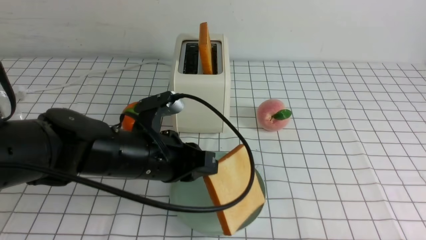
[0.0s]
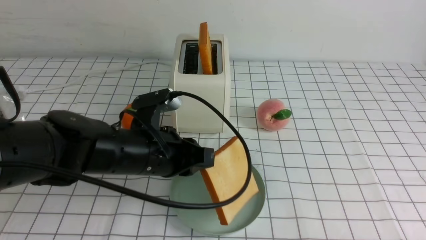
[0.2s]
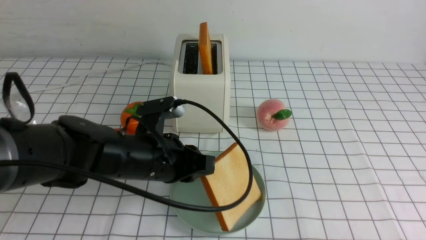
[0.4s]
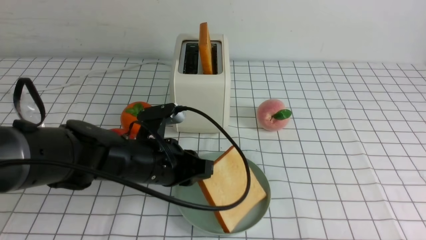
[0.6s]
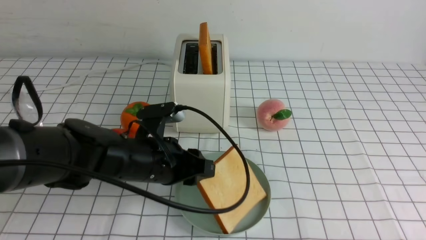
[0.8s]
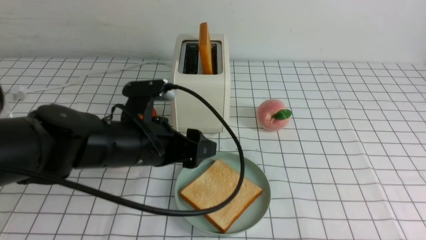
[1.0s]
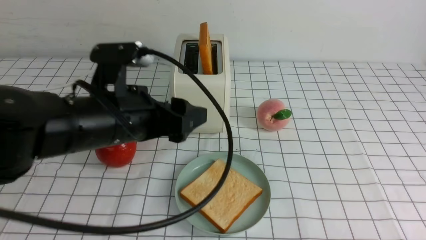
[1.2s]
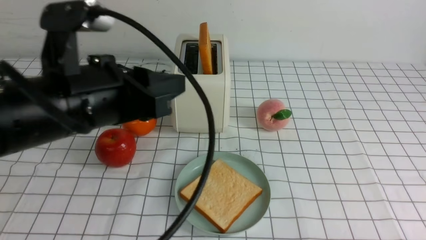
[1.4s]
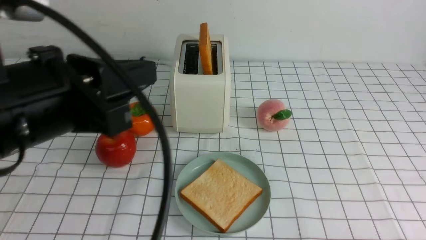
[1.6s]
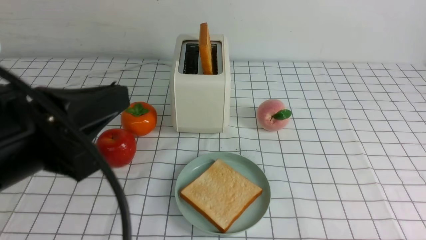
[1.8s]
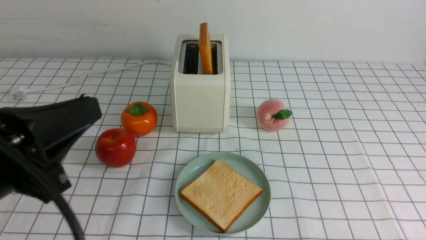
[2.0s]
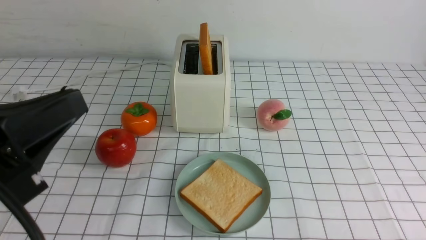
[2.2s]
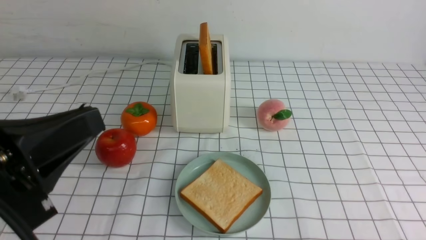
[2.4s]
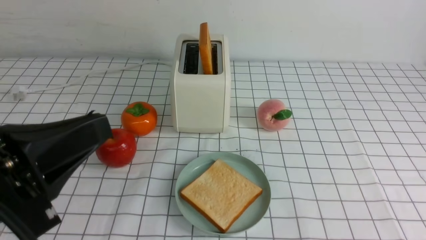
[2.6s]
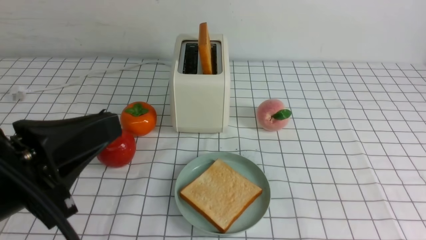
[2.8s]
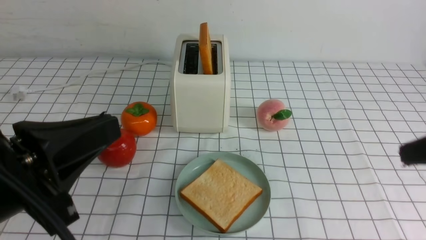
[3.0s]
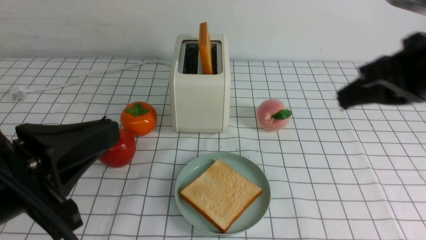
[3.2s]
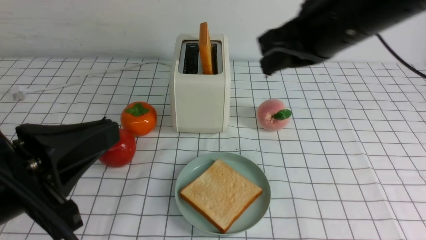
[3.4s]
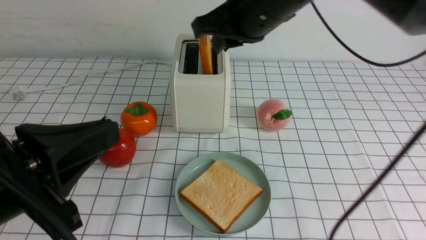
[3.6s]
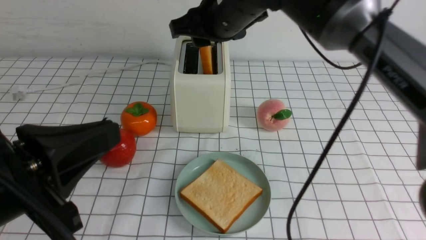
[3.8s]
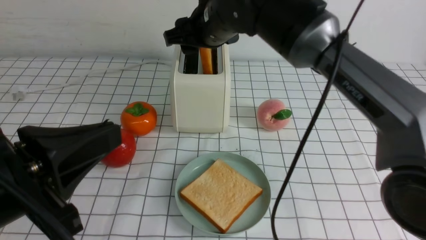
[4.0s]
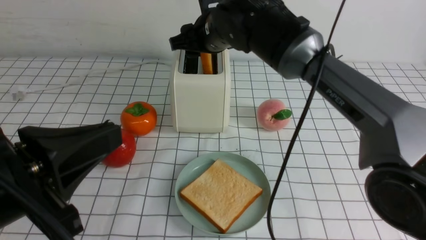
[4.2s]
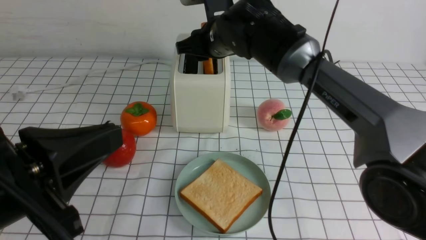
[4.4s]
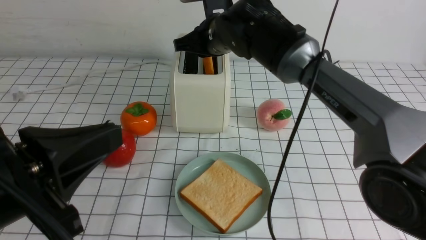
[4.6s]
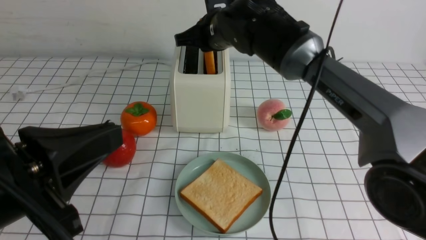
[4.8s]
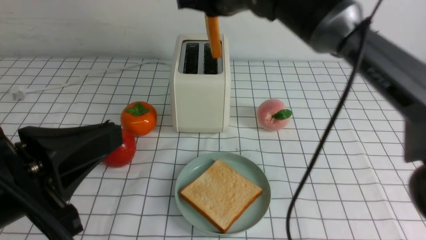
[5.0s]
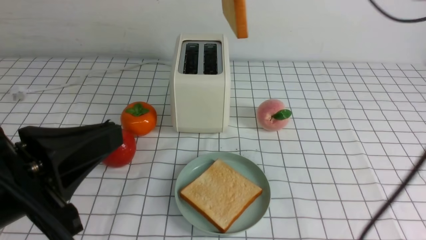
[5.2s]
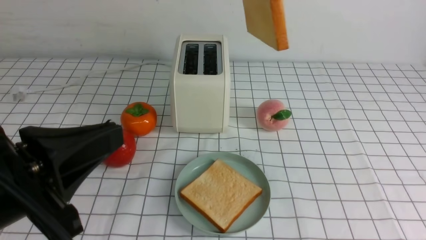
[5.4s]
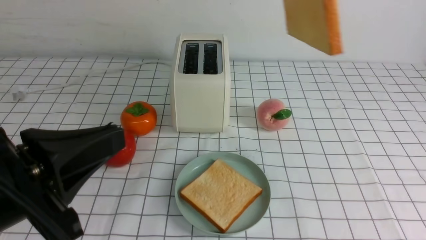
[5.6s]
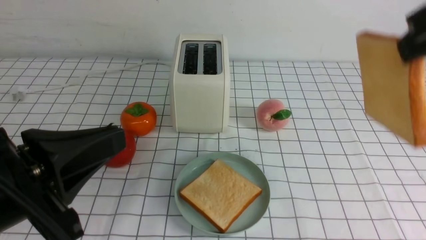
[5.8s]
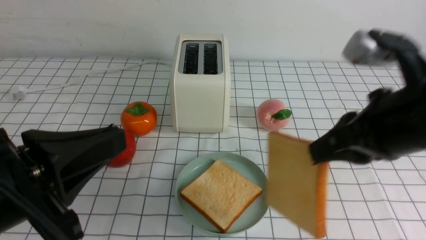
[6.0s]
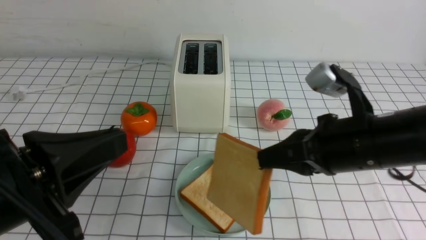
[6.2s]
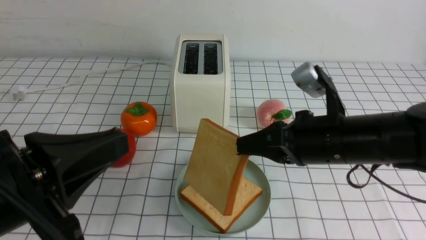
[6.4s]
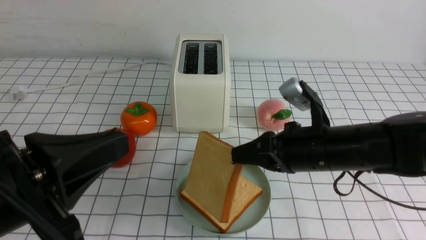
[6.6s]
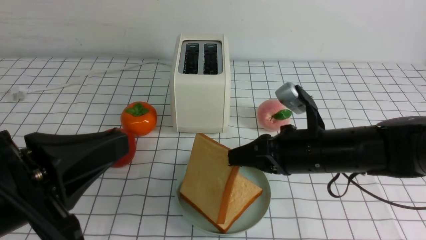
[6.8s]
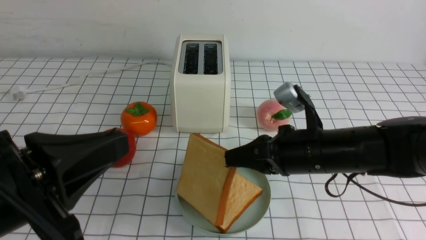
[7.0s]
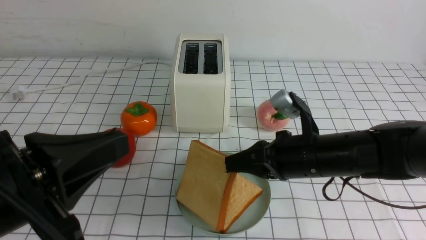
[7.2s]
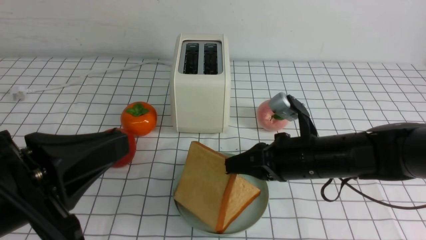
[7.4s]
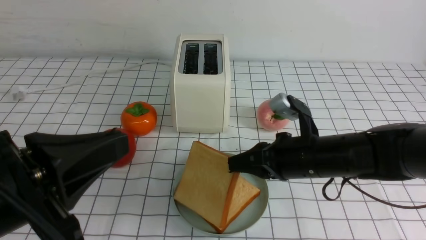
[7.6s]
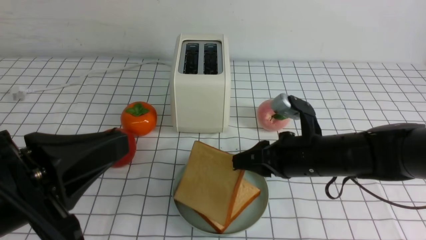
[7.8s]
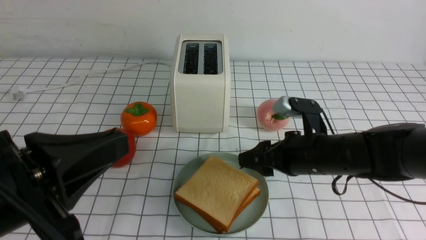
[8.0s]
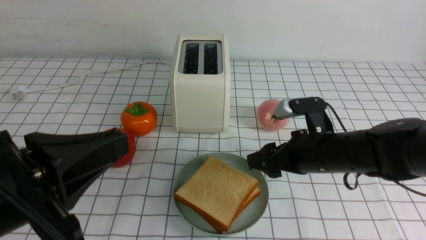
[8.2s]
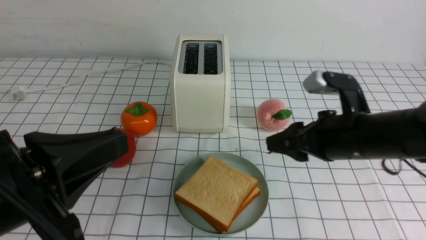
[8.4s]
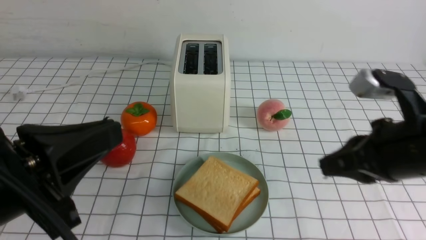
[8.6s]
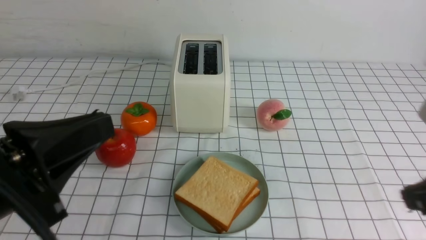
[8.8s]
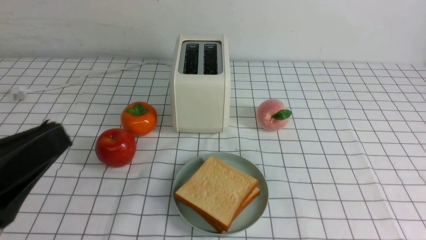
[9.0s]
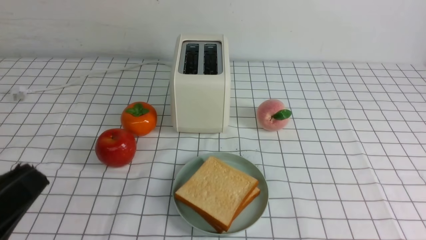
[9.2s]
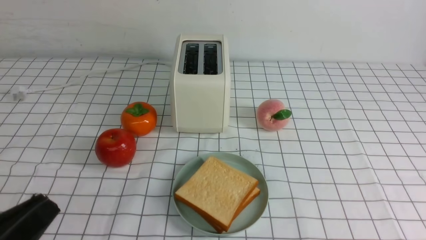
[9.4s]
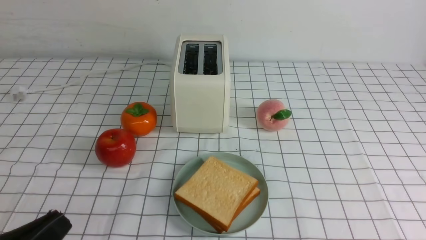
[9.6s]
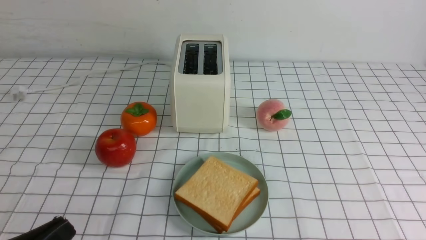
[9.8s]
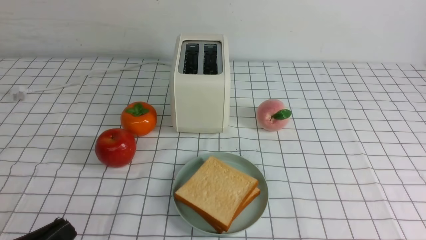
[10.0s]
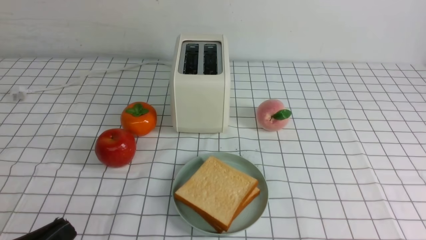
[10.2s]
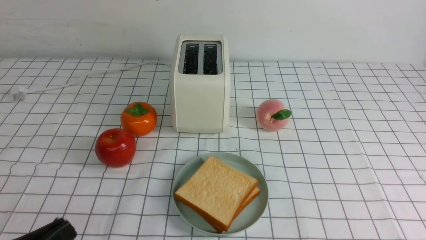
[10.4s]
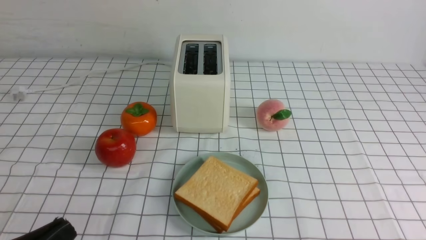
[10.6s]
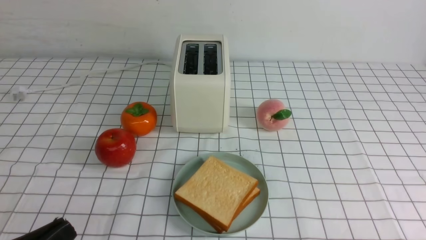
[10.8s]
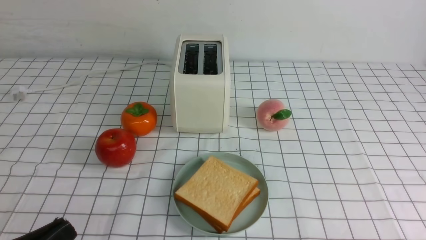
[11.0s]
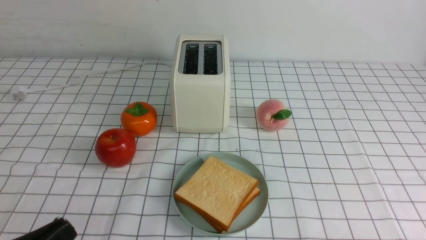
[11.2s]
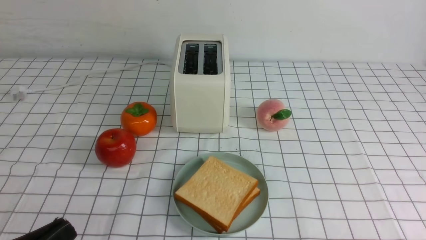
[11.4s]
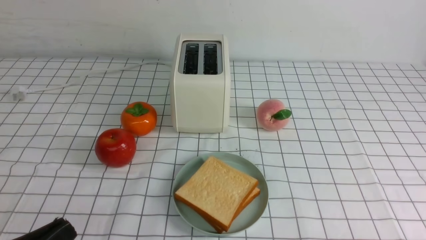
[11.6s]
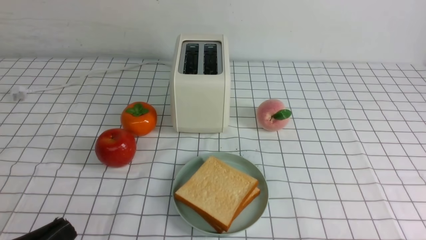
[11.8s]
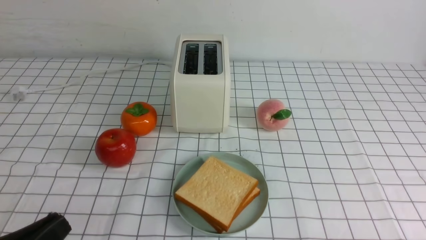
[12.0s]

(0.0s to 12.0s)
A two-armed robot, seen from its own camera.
Task of the whole recording: take toasted bread from bread machine on white checkered table place on plate.
Step, 1.2s - 4.8s: use the right arm to take out a slice of bread.
Step, 5.0s - 8.2s: use the right arm to put a slice of bread into the plate.
0.0s - 1.6s: The left gripper goes some 15 cm upward, backward and to the left, and opens, then closes once more.
1.6s - 3.0s: The right gripper goes roughly 25 cm upward and forward, and closes up, while the left gripper goes approximately 5 cm backward.
3.0s - 4.4s: The right gripper goes about 35 cm forward and to the left, and opens.
4.4s - 6.0s: The right gripper heads backward and to the right, covering some 30 cm, and closes.
6.0s - 7.6s: The right gripper is displaced downward and forward by approximately 15 cm.
7.6s - 9.0s: The right gripper travels backward, upward and to the right by approximately 30 cm, and closes.
9.0s - 10.4s: The left gripper shifts about 10 cm downward.

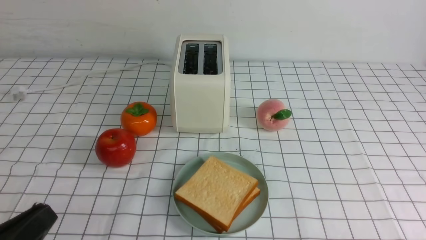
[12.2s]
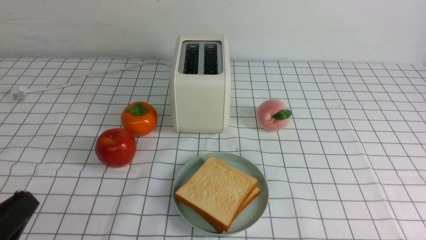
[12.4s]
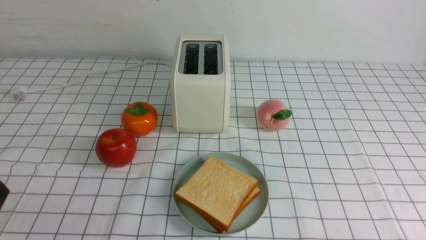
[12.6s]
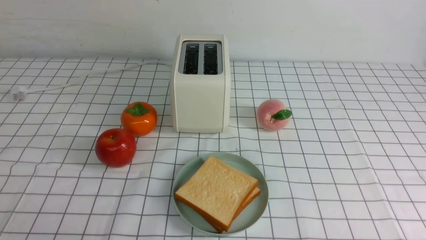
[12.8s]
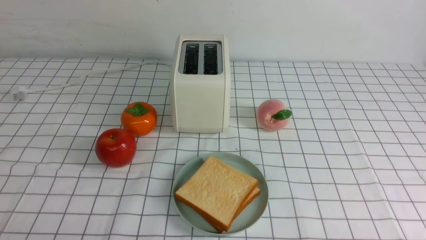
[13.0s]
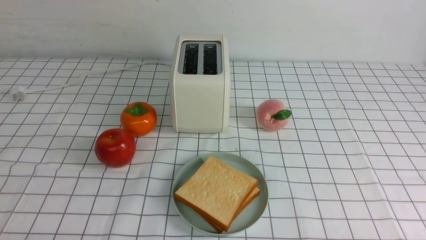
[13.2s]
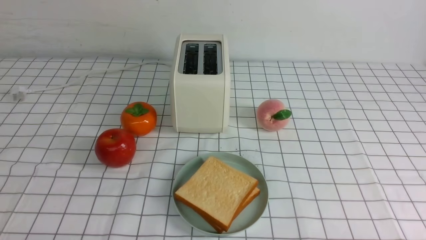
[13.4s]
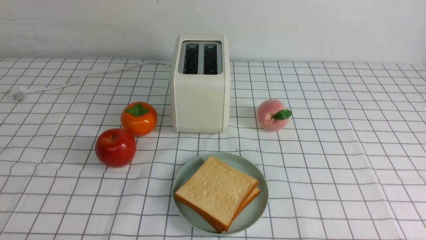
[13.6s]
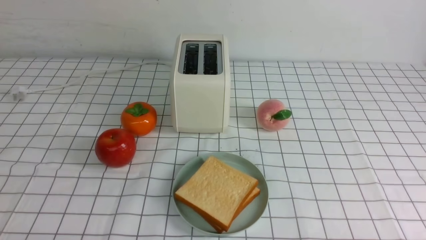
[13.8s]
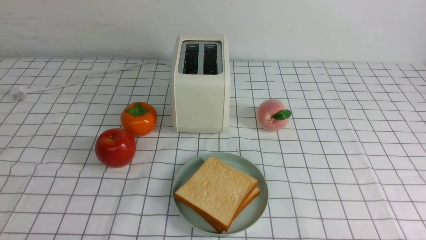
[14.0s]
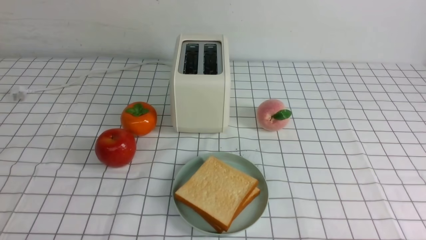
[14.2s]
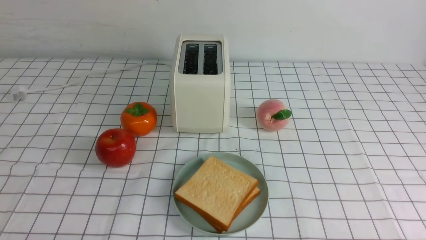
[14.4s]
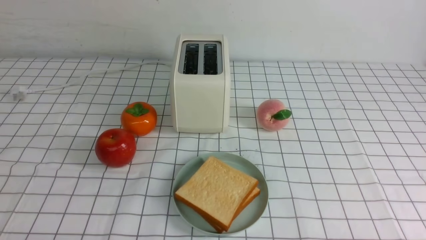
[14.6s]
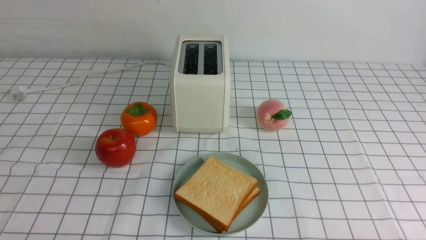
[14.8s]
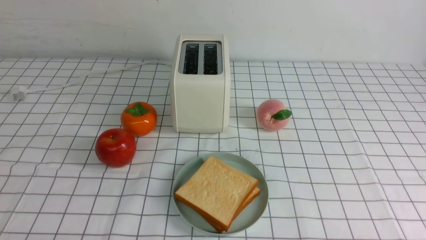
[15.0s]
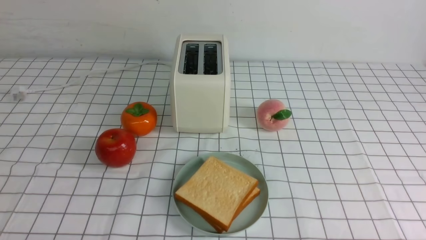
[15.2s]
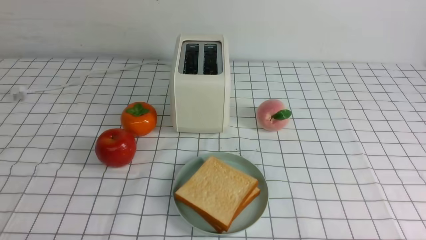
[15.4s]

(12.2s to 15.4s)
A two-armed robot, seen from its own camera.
Task of the whole recording: take toasted bread from bread machine on white checkered table place on plate.
12.2s - 13.8s: The left gripper heads downward, covering about 5 cm.
13.8s - 15.4s: The two grippers keep their place.
